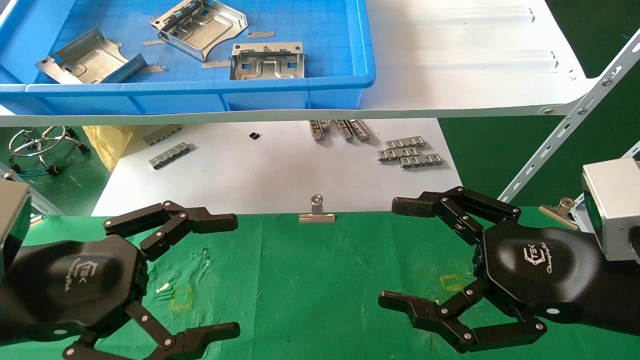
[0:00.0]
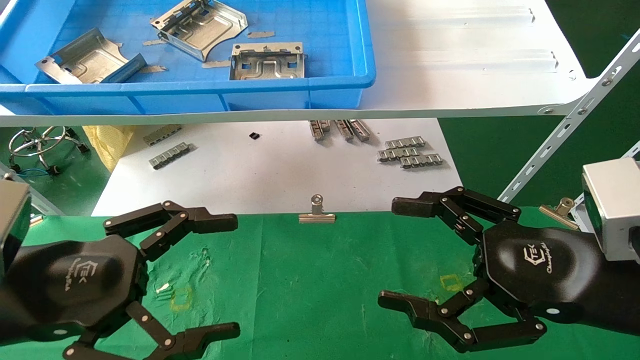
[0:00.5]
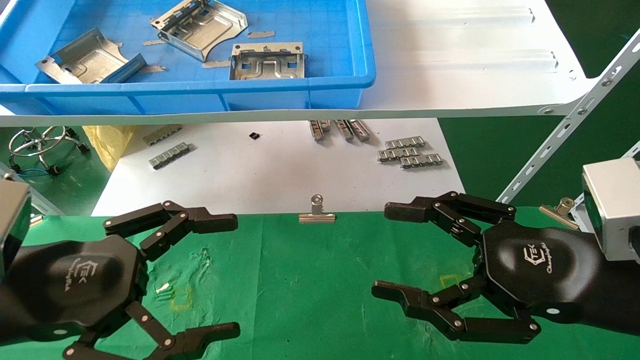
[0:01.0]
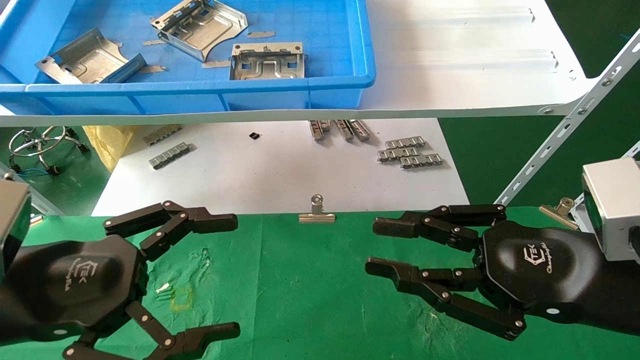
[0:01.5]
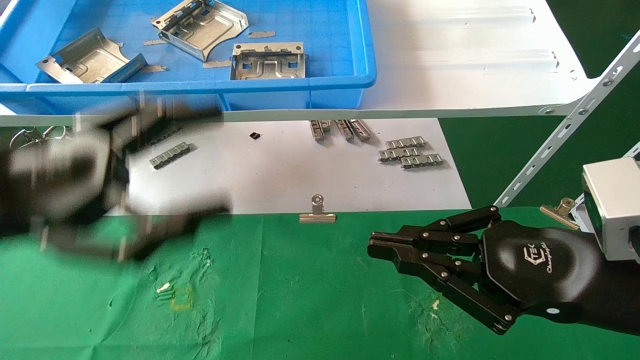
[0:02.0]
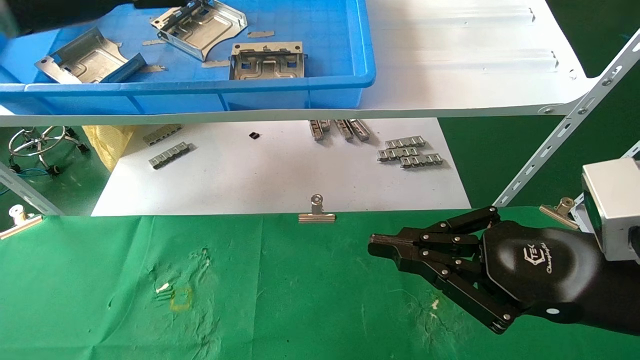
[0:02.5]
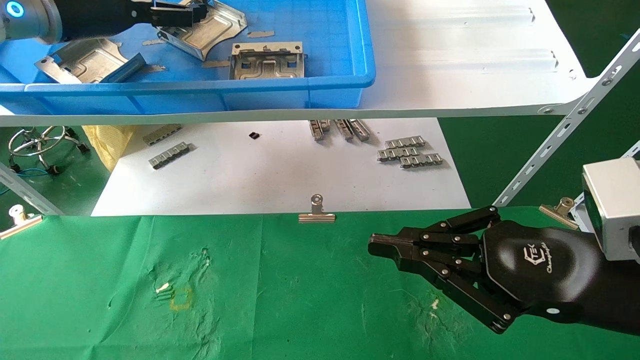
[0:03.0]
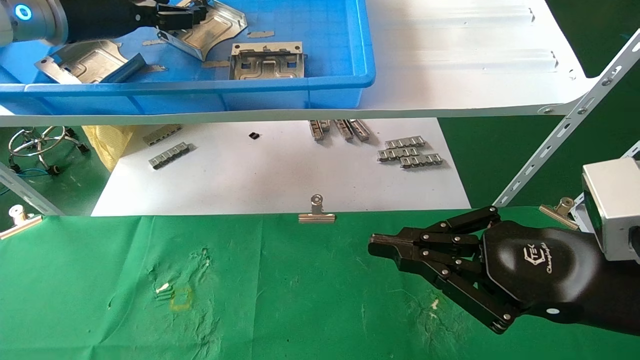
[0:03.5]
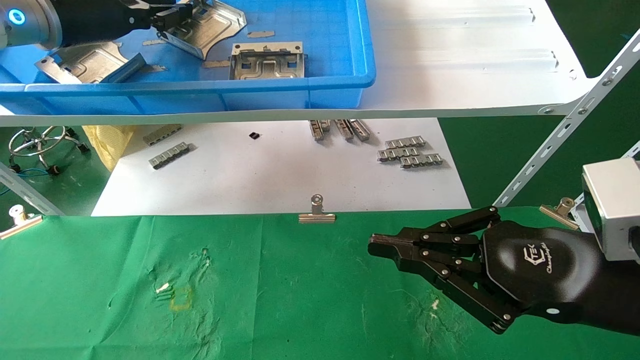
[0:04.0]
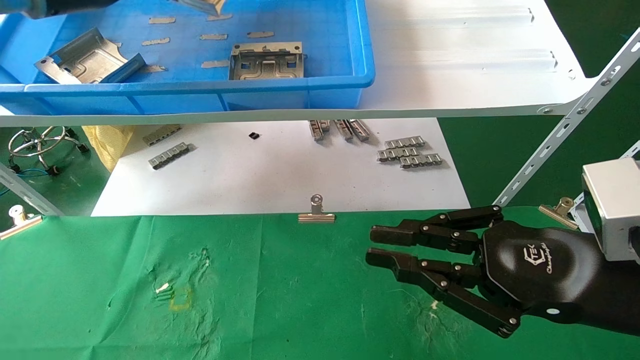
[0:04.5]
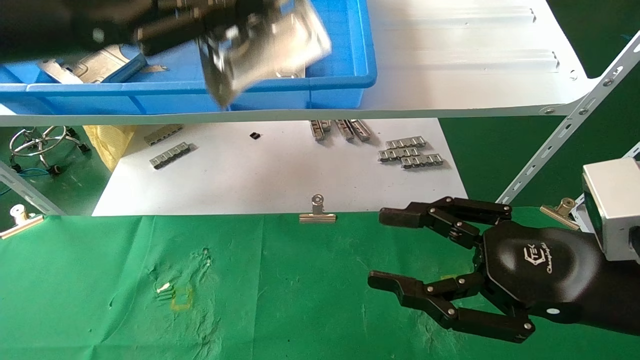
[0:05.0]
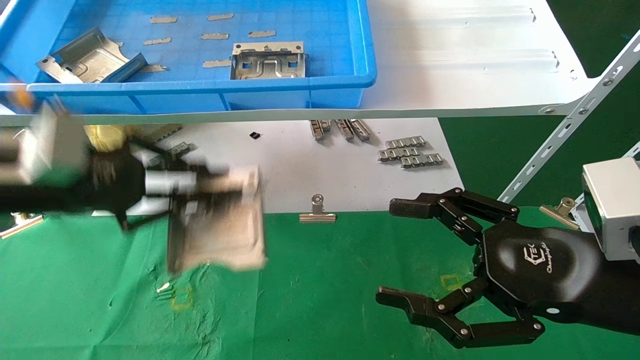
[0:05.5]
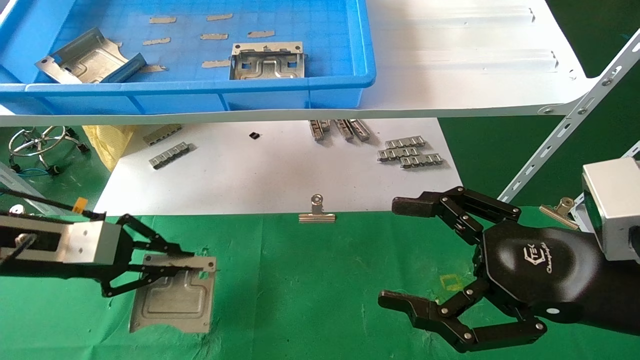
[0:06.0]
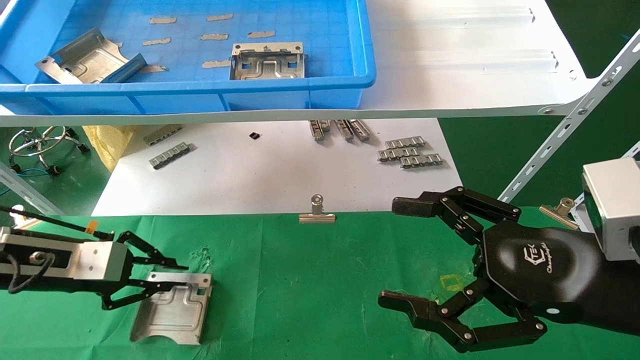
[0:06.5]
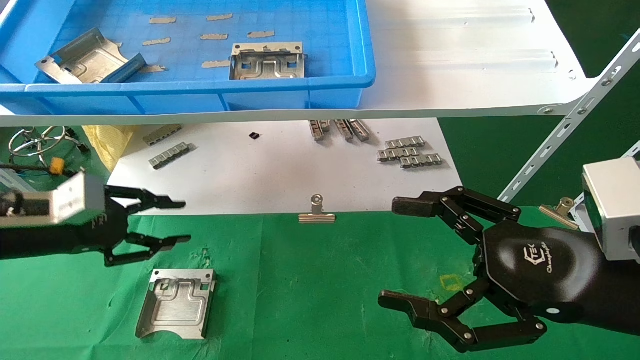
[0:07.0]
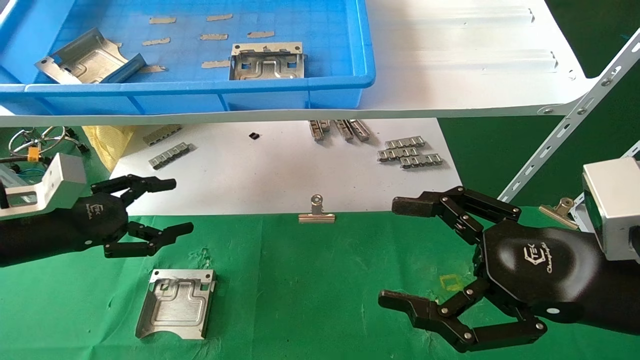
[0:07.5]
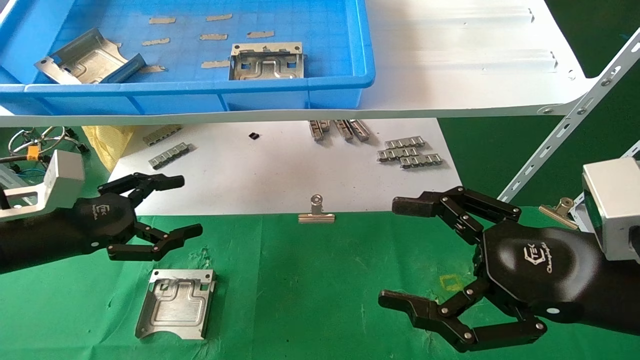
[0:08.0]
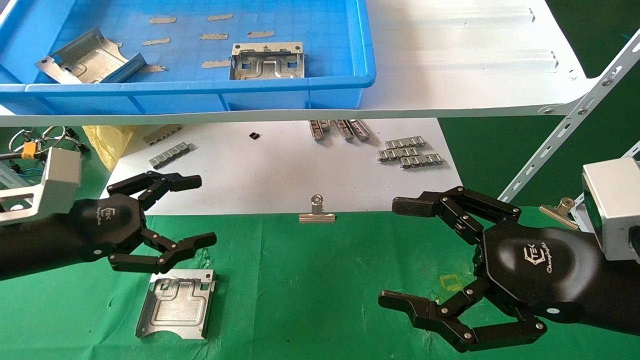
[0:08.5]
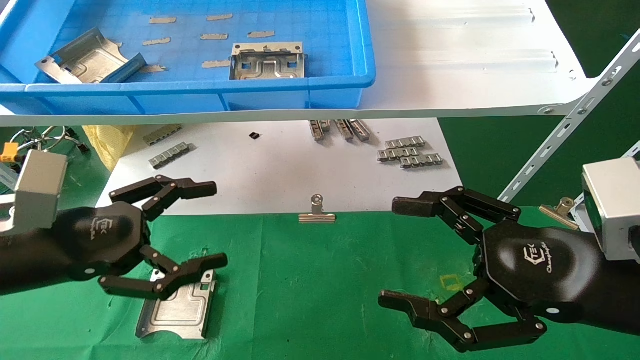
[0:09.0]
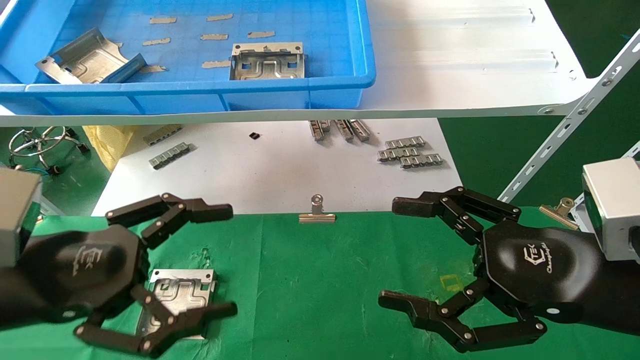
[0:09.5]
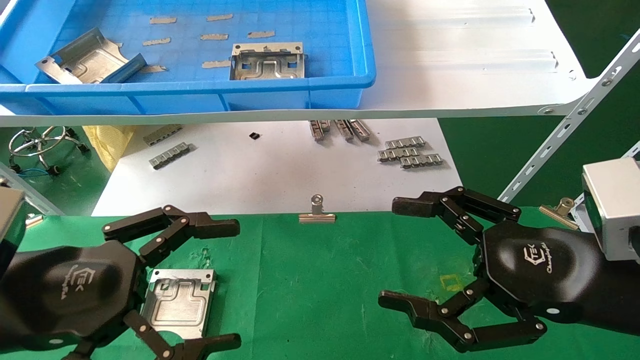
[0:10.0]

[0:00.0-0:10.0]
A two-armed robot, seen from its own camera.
Task of the whole recording: use the mechanical arm to pick up the parts and place them on the table.
Step, 0:02.0 to 0:04.0: Pick up the hard drive bracket from the feeding area.
Step, 0:04.5 to 0:06.5: Place the hard drive bracket into the box.
0:00.0 to 0:02.0: The right gripper closes, while the left gripper shifts some 10 cm upward.
0:02.0 to 0:04.0: The left gripper travels forward and upward by approximately 25 cm, and closes its fingers.
0:04.0 to 0:06.0: The left gripper moves downward and backward, about 25 cm. The right gripper opens up.
0:06.0 to 0:08.0: The left gripper opens its fingers.
0:08.0 to 0:10.0: The left gripper shifts some 15 cm backward and to the right.
